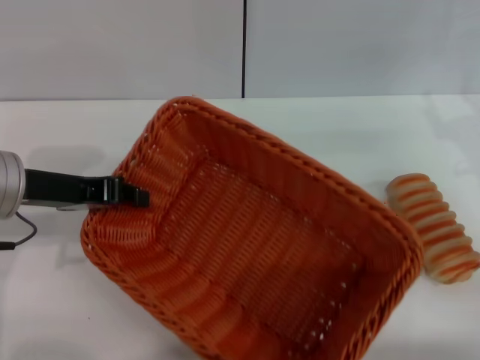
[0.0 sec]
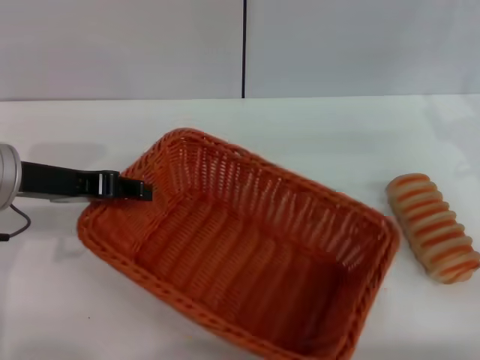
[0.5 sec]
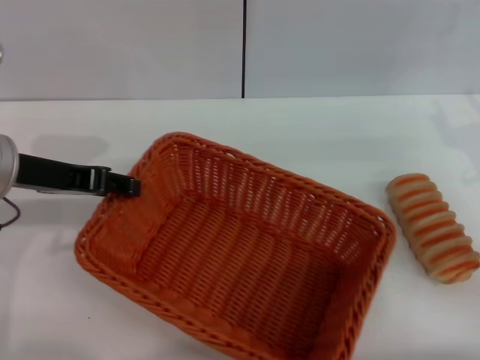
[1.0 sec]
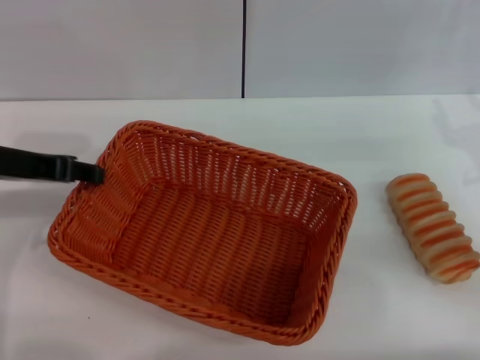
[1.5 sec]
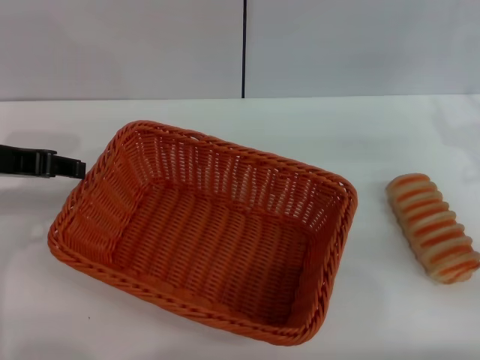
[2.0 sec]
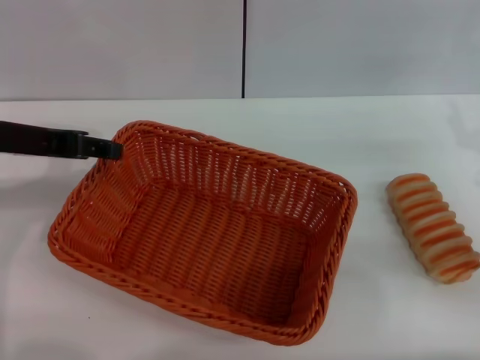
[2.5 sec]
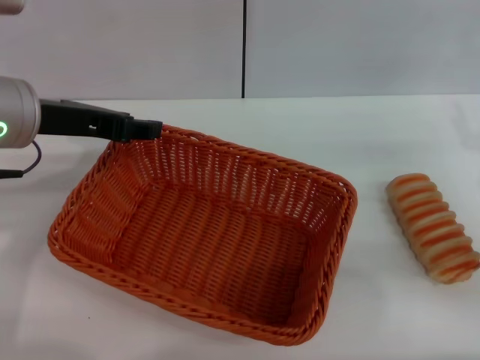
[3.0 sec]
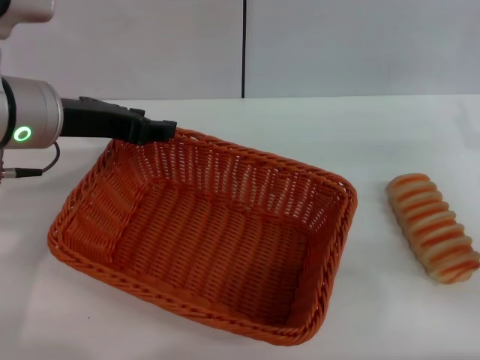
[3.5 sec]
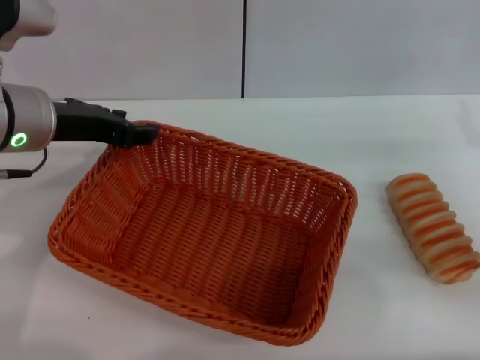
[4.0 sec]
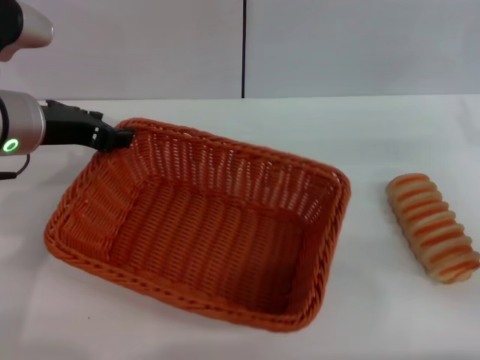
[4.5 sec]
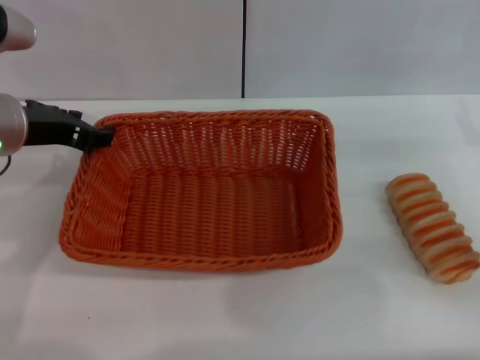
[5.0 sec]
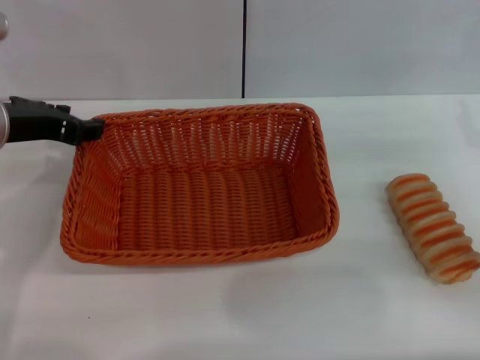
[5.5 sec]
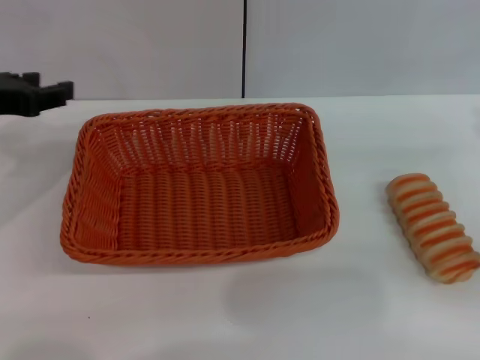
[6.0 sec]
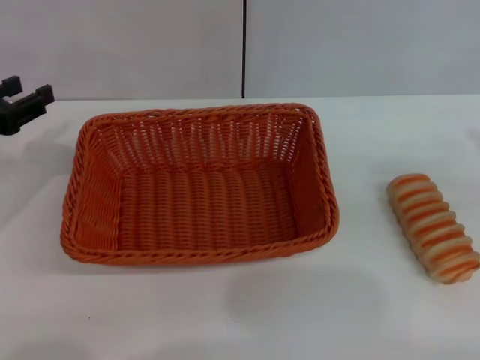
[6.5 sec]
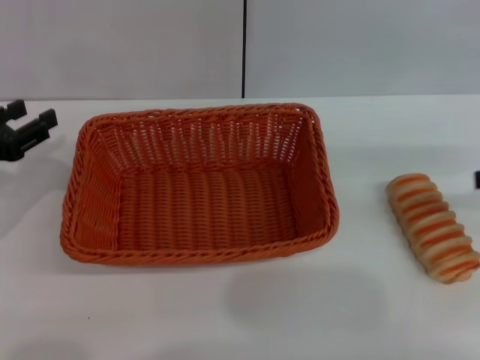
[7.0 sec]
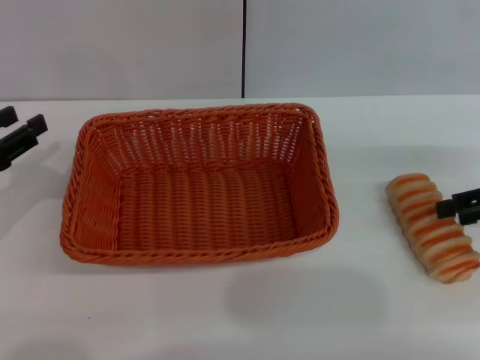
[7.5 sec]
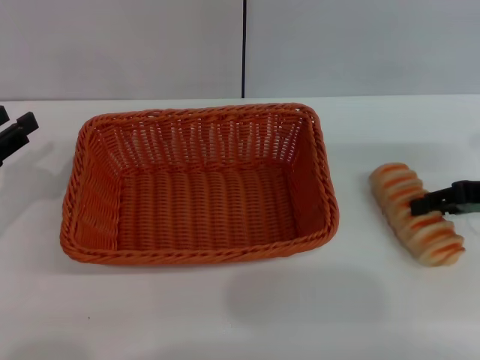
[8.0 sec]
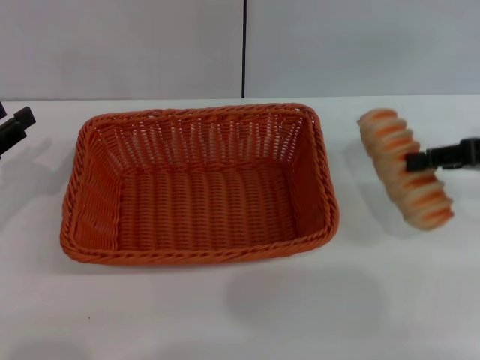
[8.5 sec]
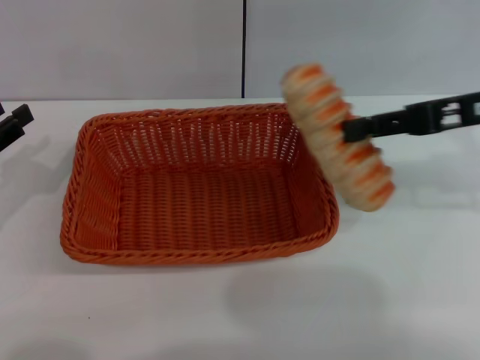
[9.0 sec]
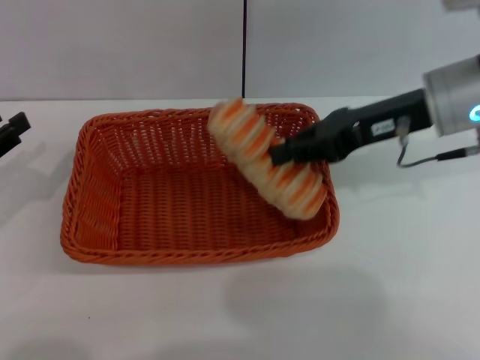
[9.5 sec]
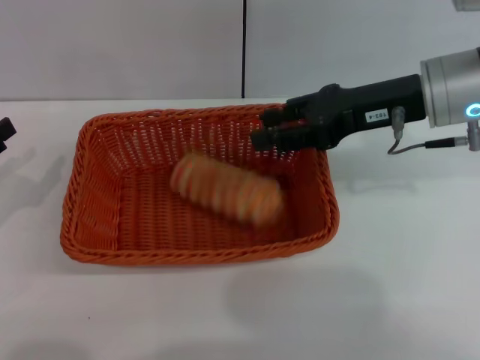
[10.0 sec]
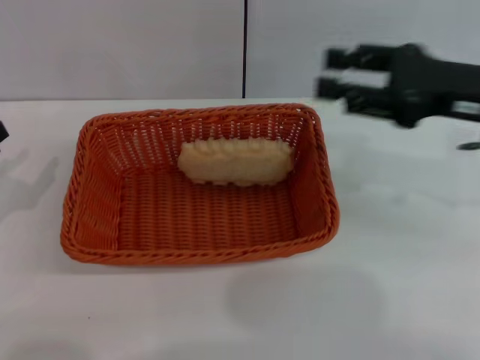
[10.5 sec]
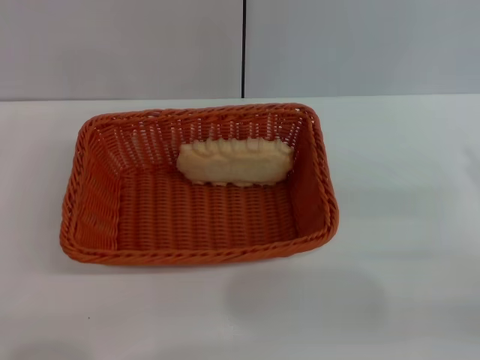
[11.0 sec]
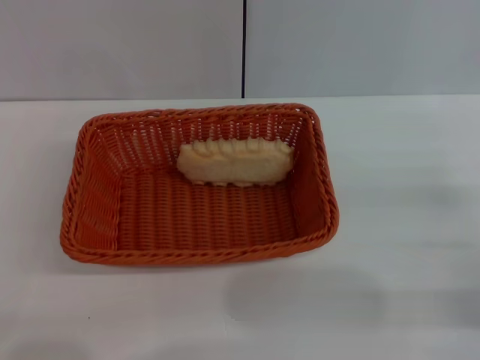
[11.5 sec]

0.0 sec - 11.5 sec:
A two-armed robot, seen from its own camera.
Step, 2.0 sec - 8.5 sec: Pick up the long bread with the right gripper.
Step, 9.0 sec - 10.0 sec: Place the long bread into the light basket with the right gripper.
0.0 sec - 2.0 sec: The left gripper opens up.
2.0 sec - 4.0 sec: The left gripper shifts some 5 cm to the right.
4.0 sec - 6.0 sec: The right gripper changes place by approximately 5 cm; the left gripper is displaced to the left by approximately 10 cm.
6.0 sec - 7.5 sec: The left gripper shifts about 10 cm downward and backward. Meanwhile the right gripper is displaced forward by some 5 cm.
7.5 sec - 9.5 sec: The right gripper travels to the left by approximately 15 cm, and closes up.
9.5 sec - 11.5 sec: The right gripper moves backward, to the right and downward, about 25 cm, and opens its fingers; the left gripper moves backward and downward, some 10 cm.
